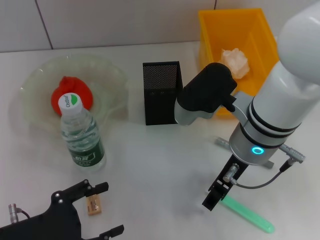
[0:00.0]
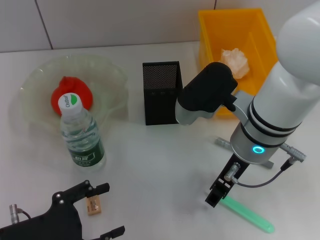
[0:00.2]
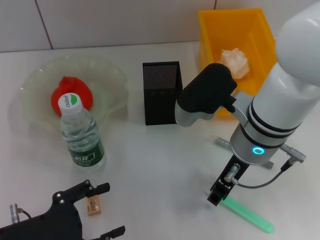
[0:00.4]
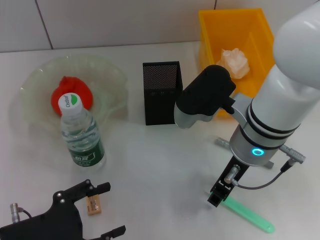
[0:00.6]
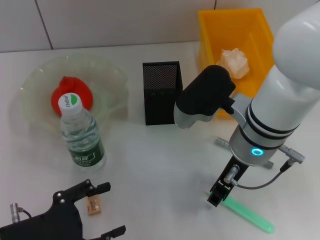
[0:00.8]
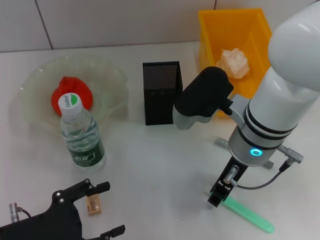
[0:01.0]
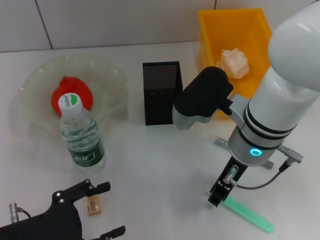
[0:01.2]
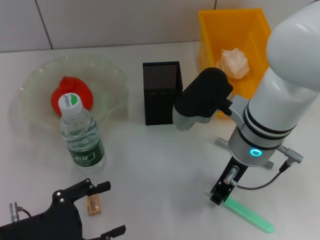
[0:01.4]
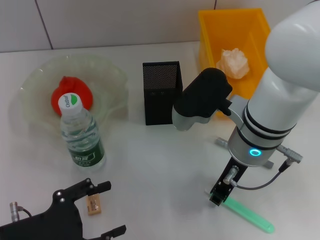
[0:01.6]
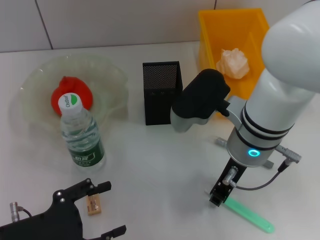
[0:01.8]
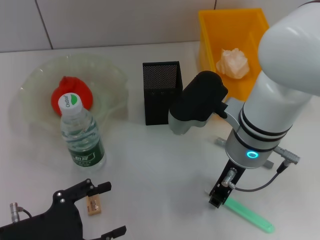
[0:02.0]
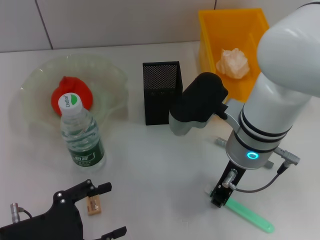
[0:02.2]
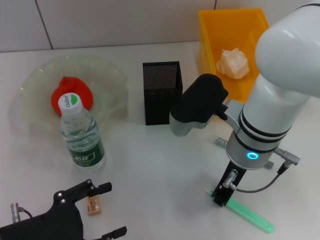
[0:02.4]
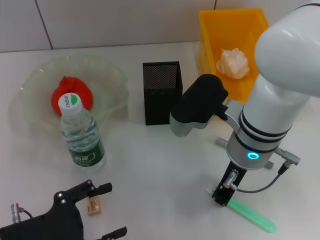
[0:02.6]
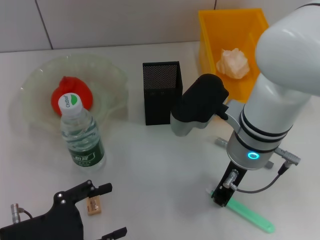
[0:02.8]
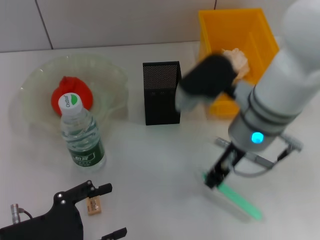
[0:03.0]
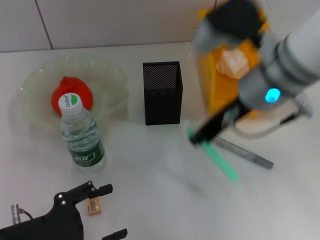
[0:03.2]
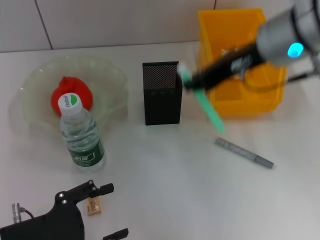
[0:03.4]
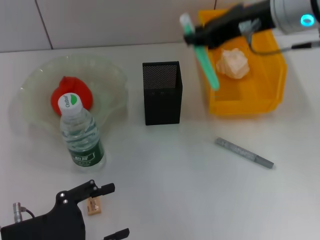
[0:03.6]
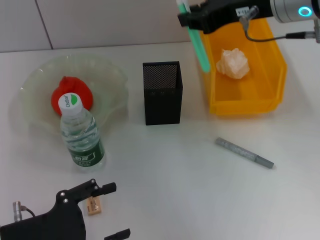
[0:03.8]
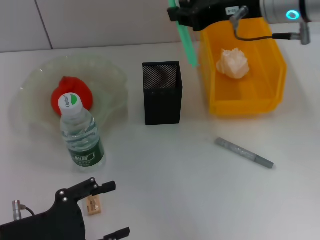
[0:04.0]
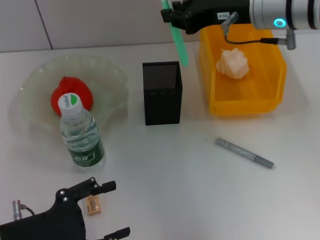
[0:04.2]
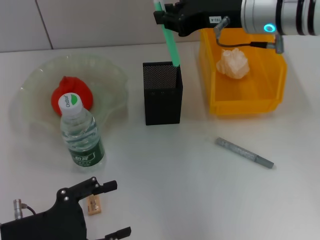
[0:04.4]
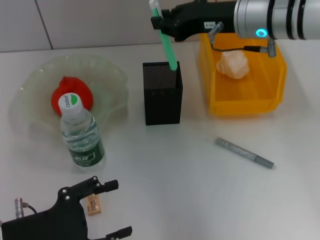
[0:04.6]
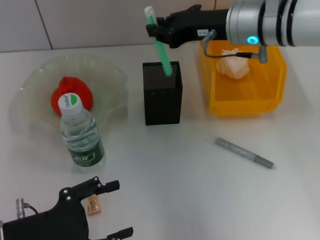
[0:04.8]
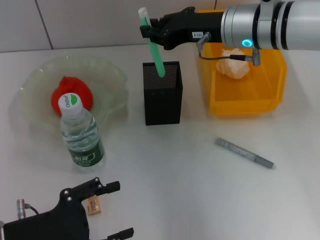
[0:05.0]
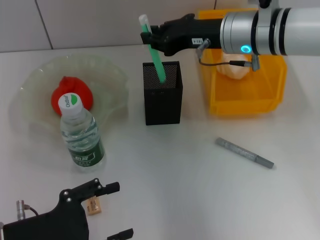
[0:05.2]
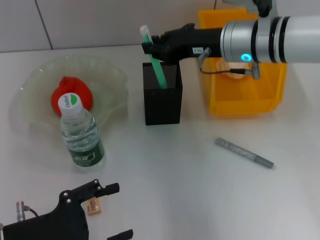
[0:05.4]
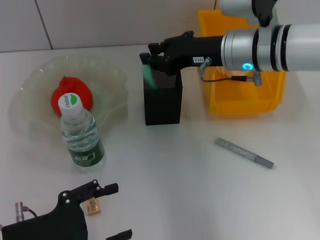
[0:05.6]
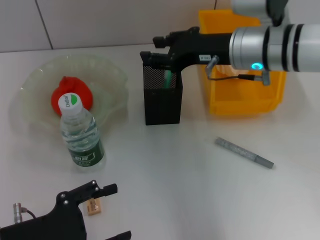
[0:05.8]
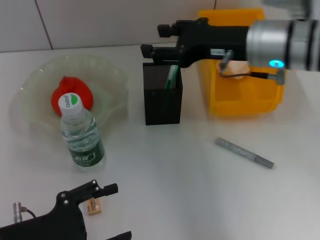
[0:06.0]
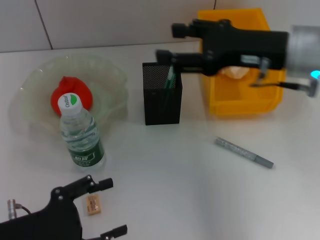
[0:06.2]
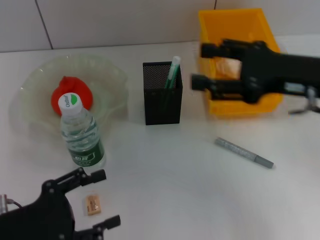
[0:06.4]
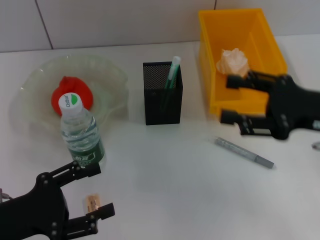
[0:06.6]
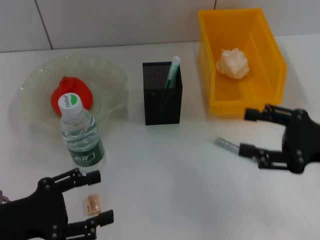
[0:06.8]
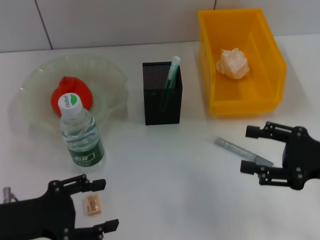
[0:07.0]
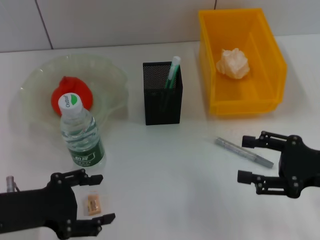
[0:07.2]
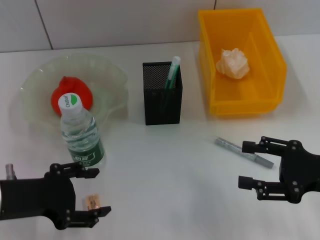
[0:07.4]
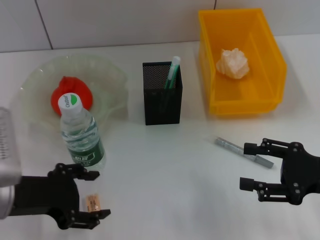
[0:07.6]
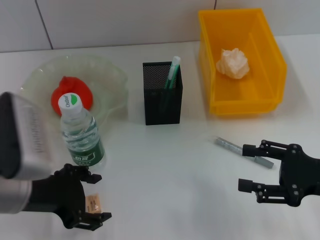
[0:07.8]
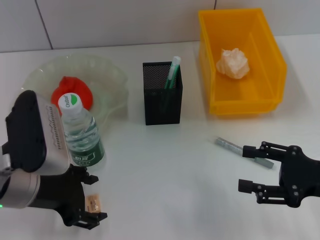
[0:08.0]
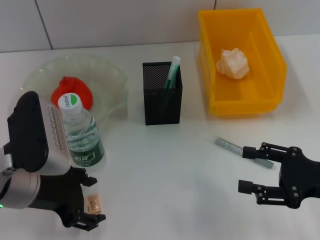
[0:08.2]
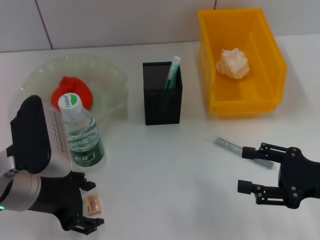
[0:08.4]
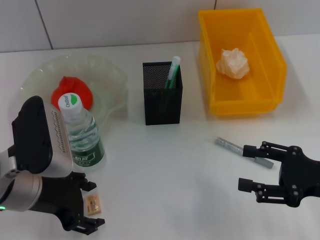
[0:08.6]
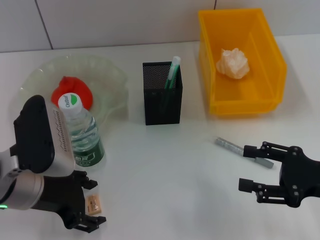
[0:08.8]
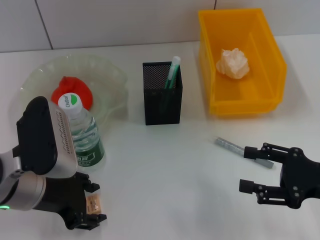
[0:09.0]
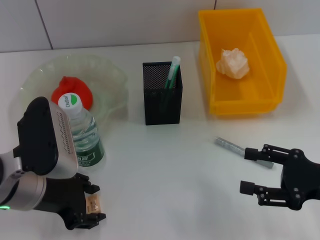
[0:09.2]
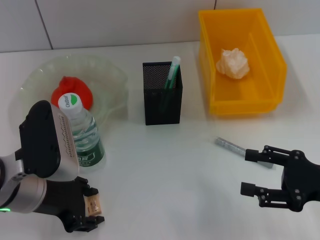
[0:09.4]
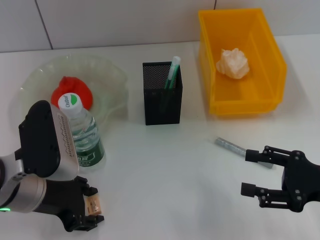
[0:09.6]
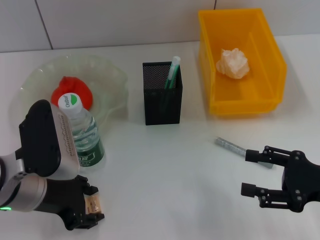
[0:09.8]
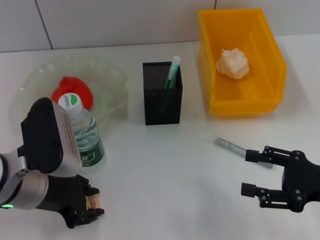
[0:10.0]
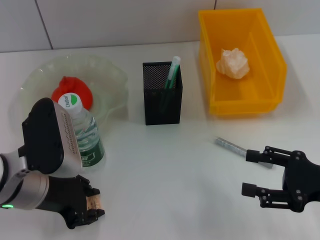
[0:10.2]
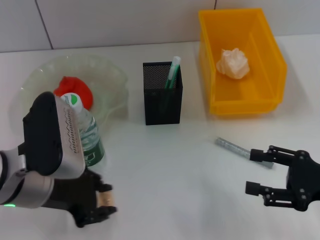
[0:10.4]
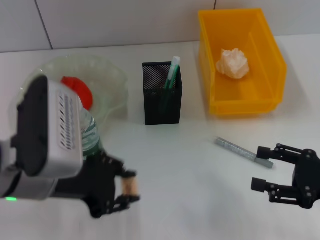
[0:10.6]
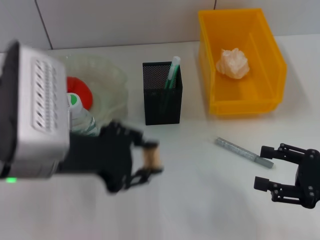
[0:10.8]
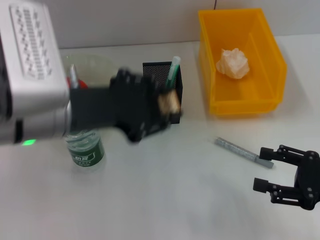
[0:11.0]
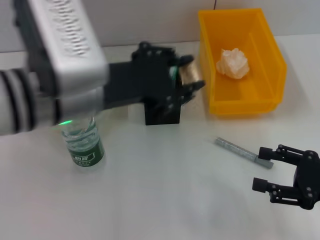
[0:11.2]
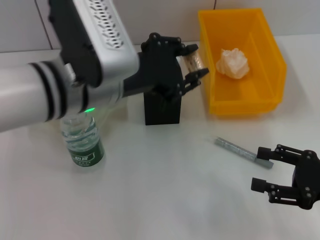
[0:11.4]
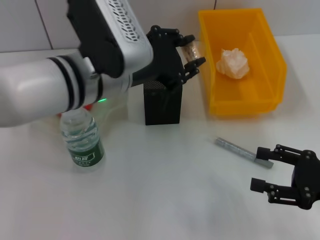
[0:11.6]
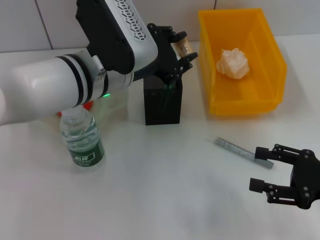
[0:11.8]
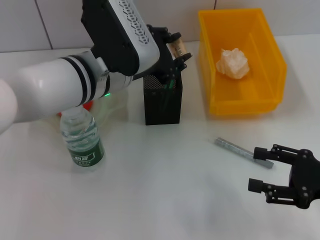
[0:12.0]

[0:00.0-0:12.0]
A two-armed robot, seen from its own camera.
Step, 0:00.0 to 0:02.6: Grab the blue utility knife with the right hand.
Step, 0:02.8 to 0:05.8: Place the blue utility knife into the pen holder with the right hand.
Step, 0:06.0 to 0:10.0: Grab the eraser with the left hand.
0:00.0 to 0:01.6: The right gripper closes up.
0:01.6 to 0:03.0: The grippers move only a little.
0:03.0 to 0:04.4: The right gripper goes some 10 cm forward and upward.
0:04.4 to 0:06.0: The right gripper opens its fingers.
0:06.0 to 0:07.6: The left gripper moves upward and forward, roughly 10 cm, while the right gripper heads backward, to the right and downward, covering approximately 20 cm, and opens its fingers.
0:07.6 to 0:09.0: The grippers make only small movements.
0:09.0 to 0:10.4: The left gripper closes its fingers.
0:10.4 to 0:12.0: The left gripper travels forward and to the right by approximately 15 cm.

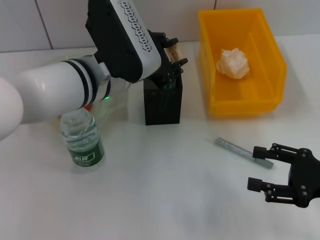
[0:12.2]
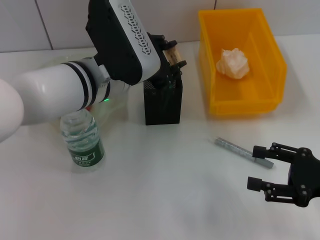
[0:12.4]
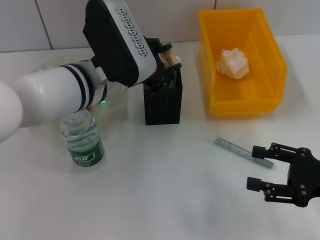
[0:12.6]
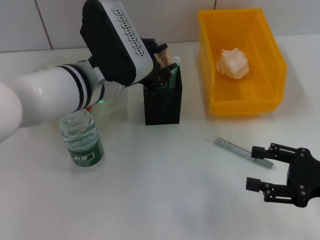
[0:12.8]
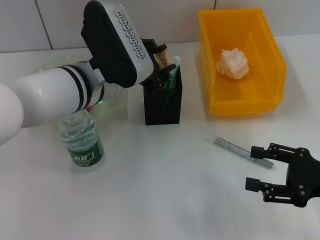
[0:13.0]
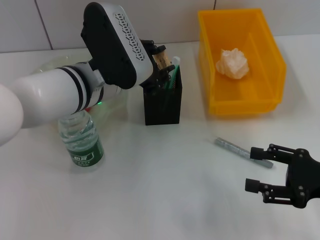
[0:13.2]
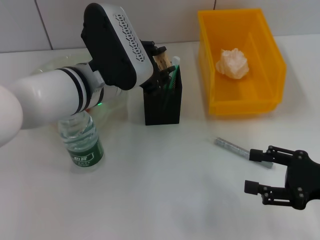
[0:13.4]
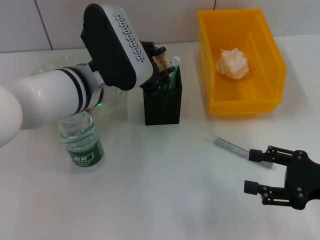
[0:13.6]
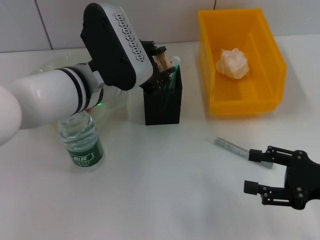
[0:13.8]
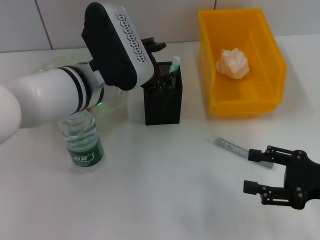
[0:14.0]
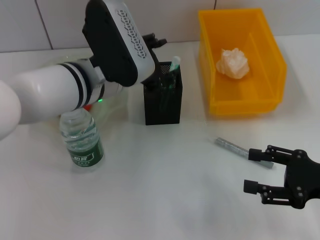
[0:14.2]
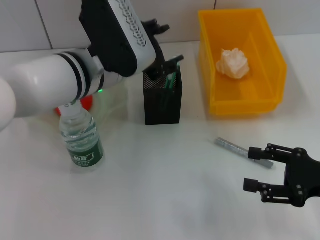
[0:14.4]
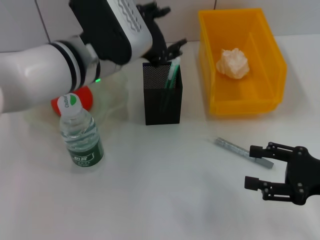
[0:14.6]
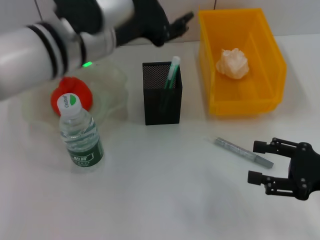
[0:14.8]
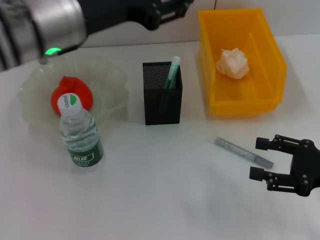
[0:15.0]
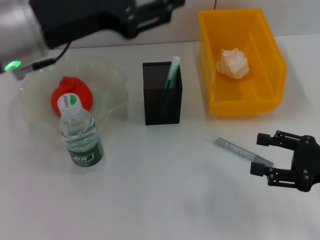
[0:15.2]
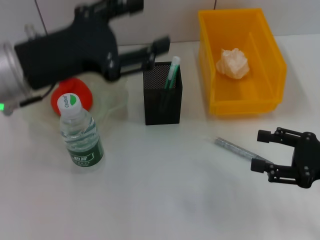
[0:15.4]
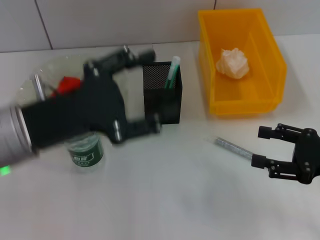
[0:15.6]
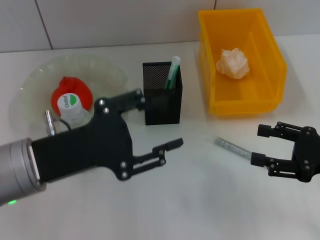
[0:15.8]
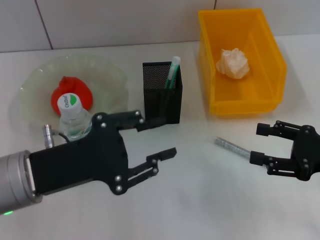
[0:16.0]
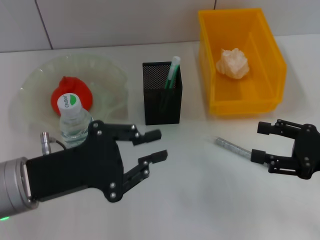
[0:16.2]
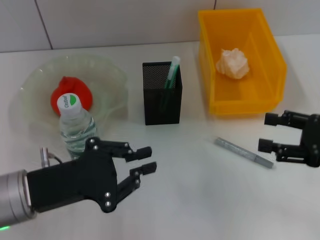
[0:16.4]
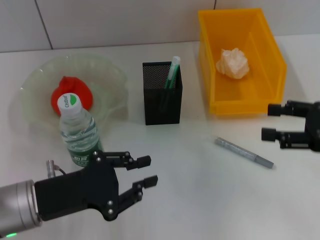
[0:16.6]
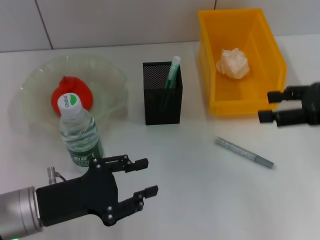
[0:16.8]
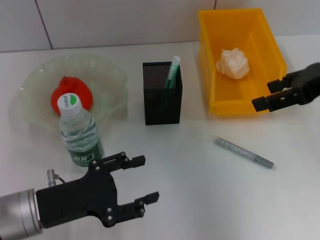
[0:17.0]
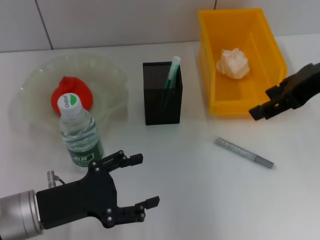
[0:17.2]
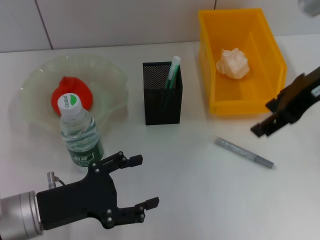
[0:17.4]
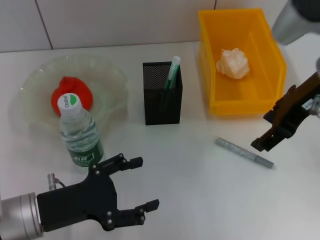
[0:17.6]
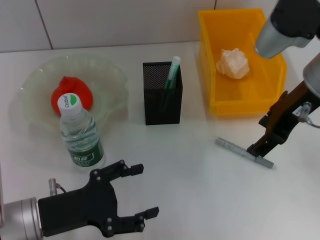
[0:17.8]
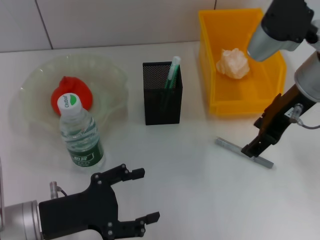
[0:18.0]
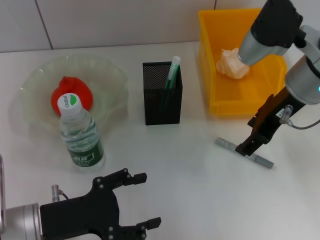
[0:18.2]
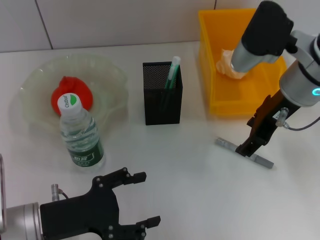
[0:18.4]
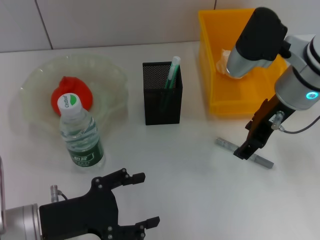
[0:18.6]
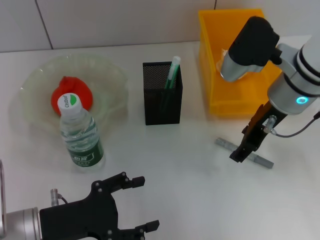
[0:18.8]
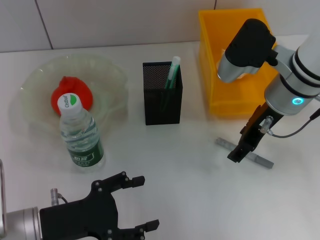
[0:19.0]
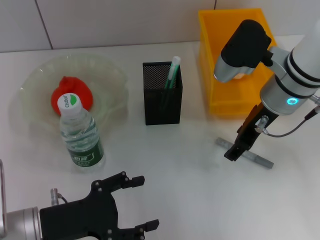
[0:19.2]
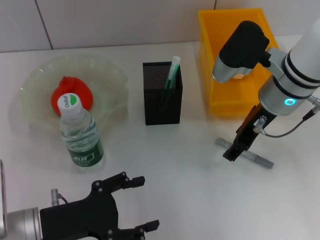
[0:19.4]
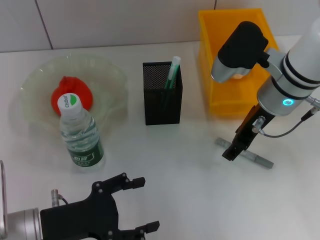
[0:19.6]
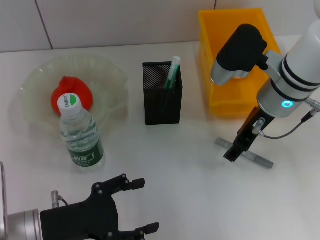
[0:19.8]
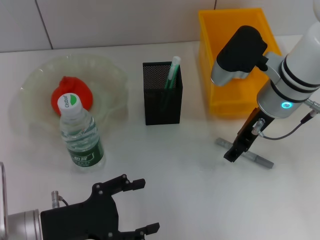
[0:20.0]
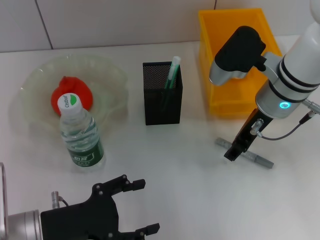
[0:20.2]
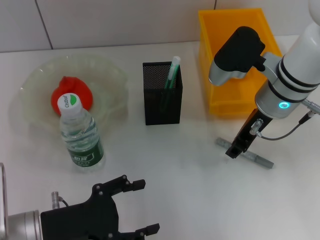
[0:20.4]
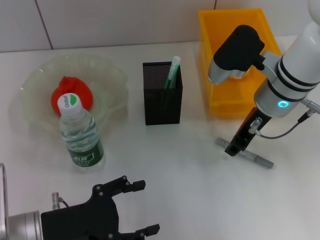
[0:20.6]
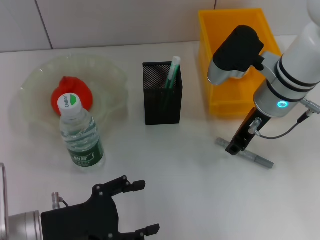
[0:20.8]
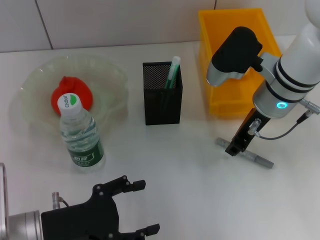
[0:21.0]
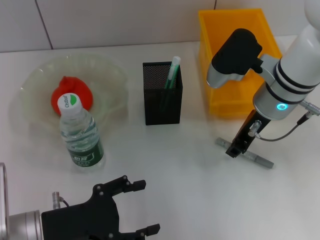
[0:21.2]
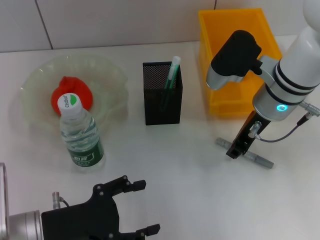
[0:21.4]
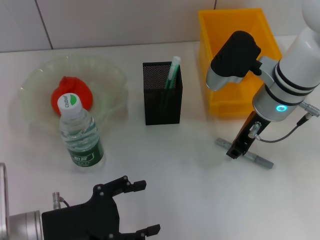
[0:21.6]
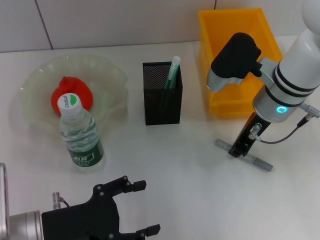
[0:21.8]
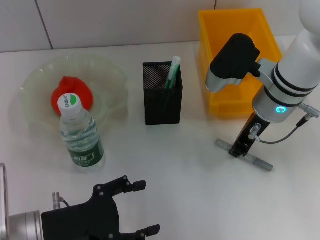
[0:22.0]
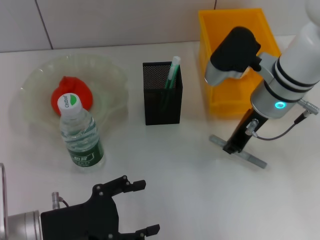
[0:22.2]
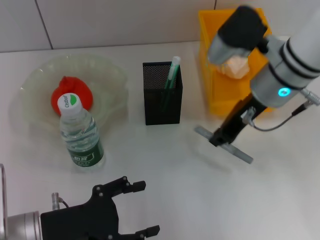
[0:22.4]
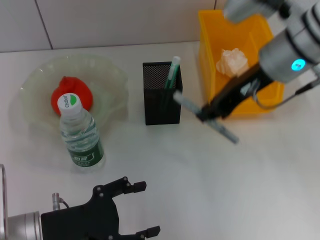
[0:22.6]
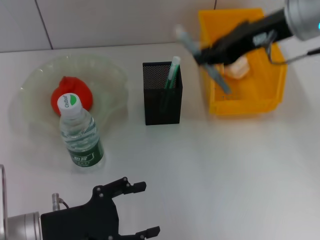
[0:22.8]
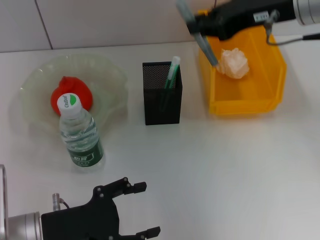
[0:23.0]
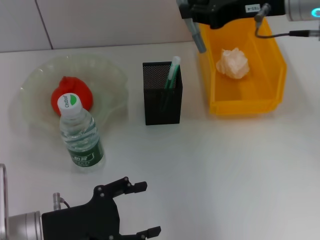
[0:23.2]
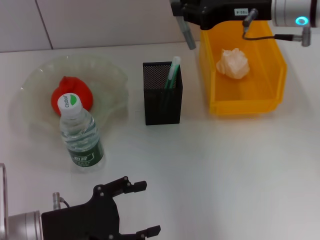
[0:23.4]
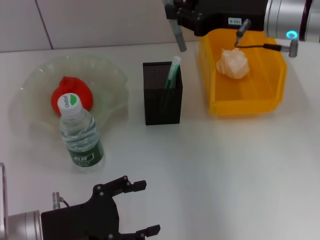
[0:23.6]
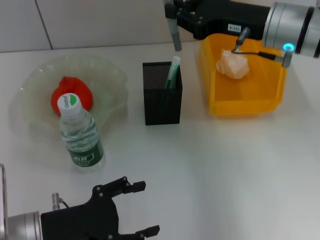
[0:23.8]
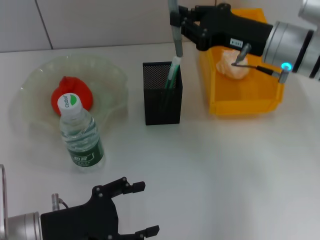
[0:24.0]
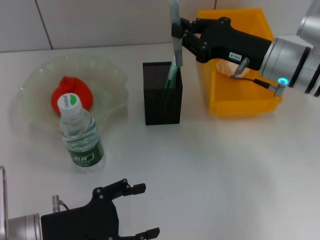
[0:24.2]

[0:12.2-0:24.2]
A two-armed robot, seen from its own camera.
Step, 0:14.0 to 0:21.8: Grab the gray glue with the right hand.
0:12.2 to 0:13.8: The grippers move only a little.
0:13.8 to 0:15.2: The left gripper is displaced upward and to the left by roughly 10 cm, and opens its fingers.
0:15.2 to 0:16.6: The right gripper shifts approximately 5 cm upward, while the left gripper goes about 20 cm downward and backward, and closes its fingers.
0:16.6 to 0:18.2: The left gripper opens its fingers, while the right gripper heads to the left, forward and upward, covering roughly 15 cm.
0:18.2 to 0:19.8: The right gripper heads downward, covering some 5 cm.
0:19.8 to 0:21.2: The right gripper closes its fingers.
0:21.2 to 0:22.6: The right gripper goes approximately 10 cm upward.
0:22.6 to 0:24.2: The right gripper heads downward, covering approximately 10 cm.
